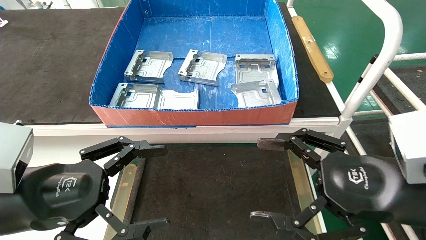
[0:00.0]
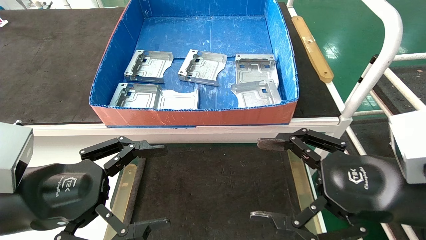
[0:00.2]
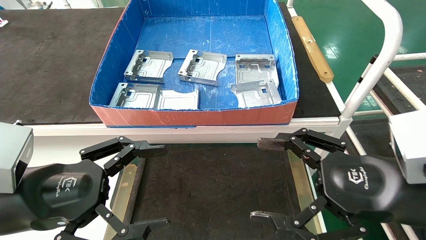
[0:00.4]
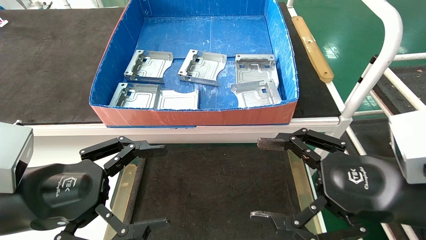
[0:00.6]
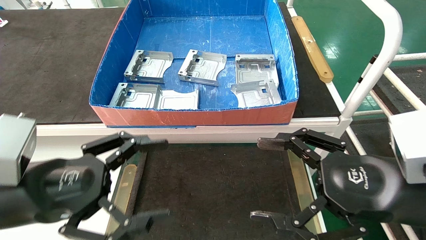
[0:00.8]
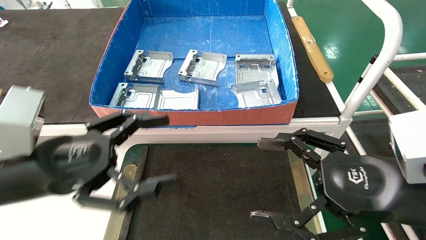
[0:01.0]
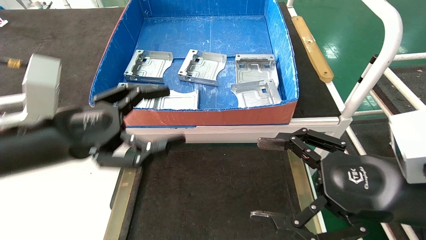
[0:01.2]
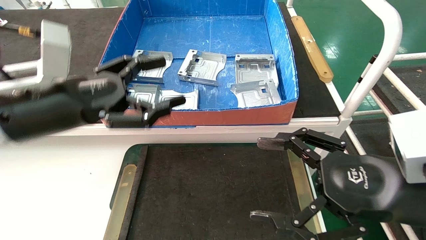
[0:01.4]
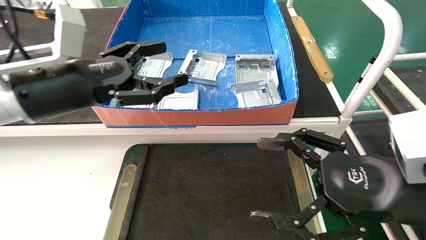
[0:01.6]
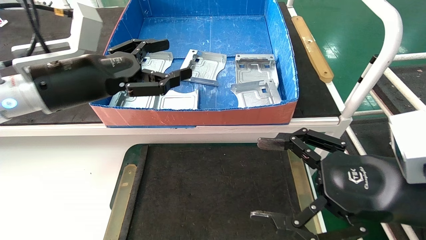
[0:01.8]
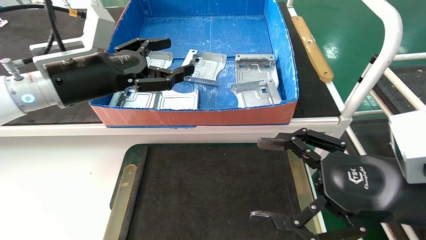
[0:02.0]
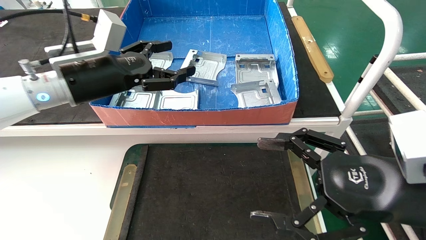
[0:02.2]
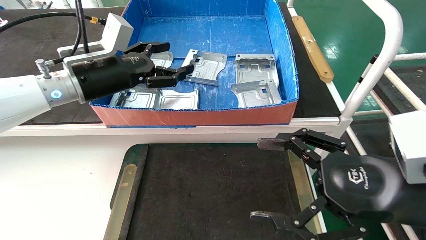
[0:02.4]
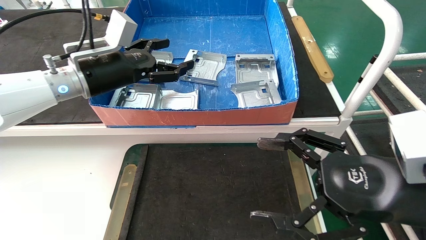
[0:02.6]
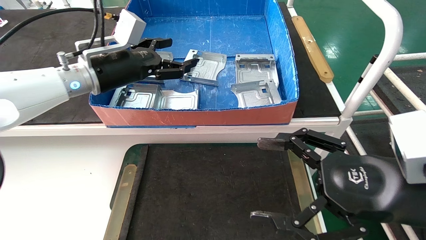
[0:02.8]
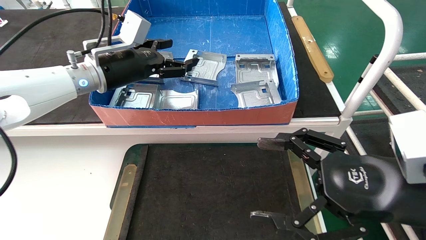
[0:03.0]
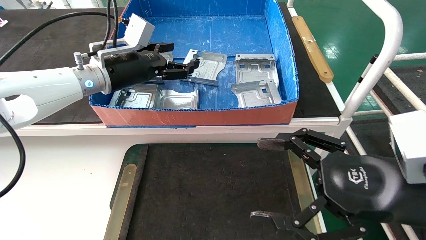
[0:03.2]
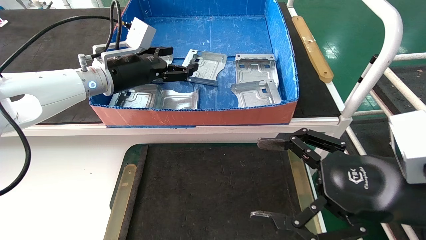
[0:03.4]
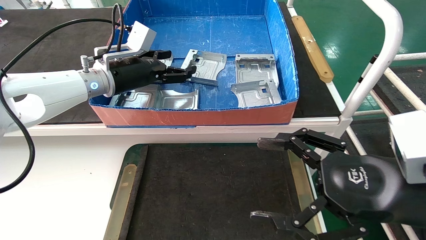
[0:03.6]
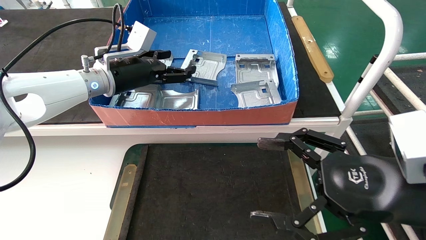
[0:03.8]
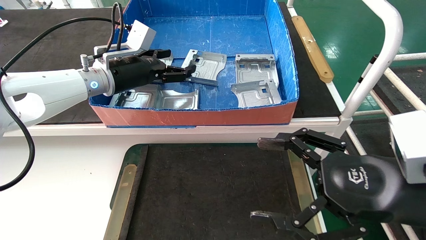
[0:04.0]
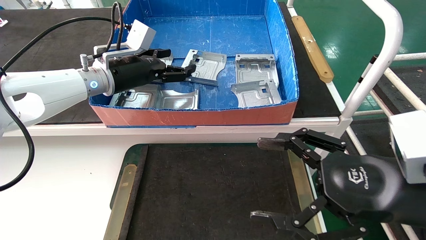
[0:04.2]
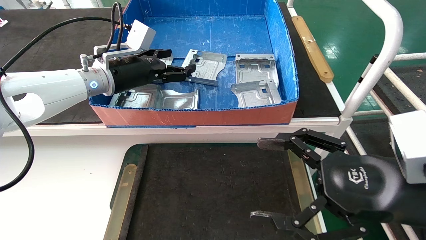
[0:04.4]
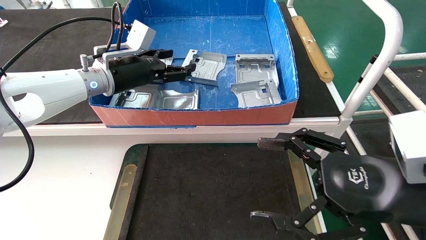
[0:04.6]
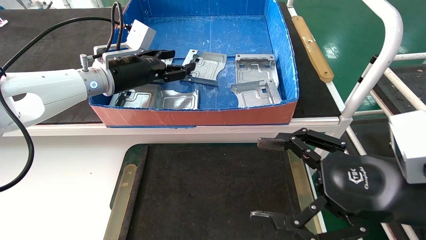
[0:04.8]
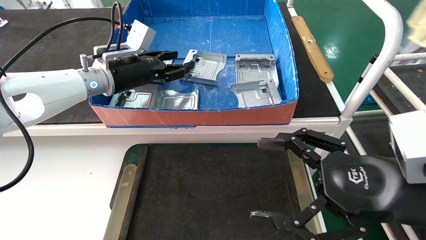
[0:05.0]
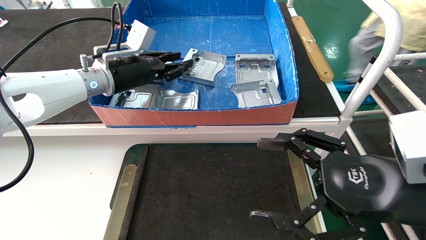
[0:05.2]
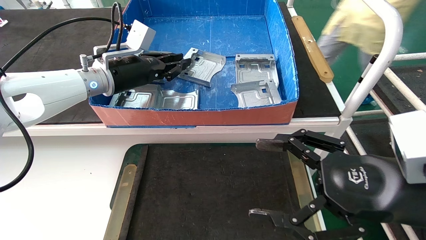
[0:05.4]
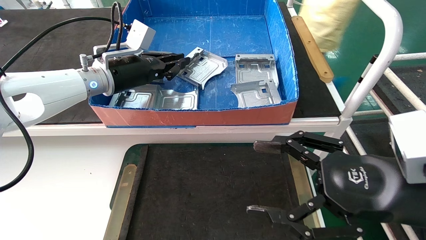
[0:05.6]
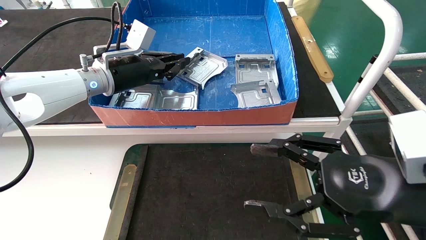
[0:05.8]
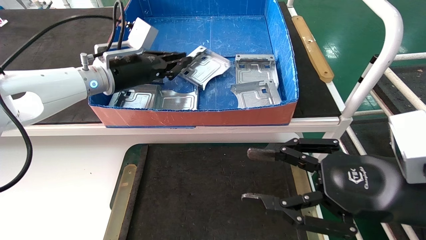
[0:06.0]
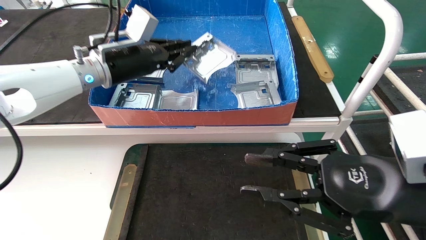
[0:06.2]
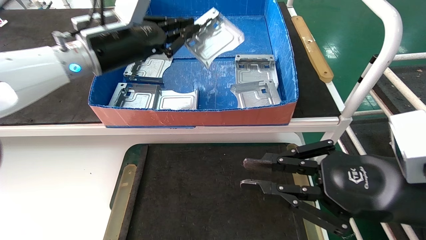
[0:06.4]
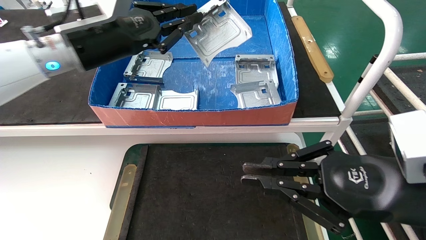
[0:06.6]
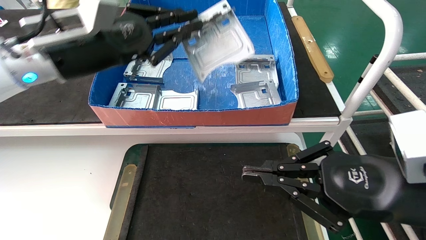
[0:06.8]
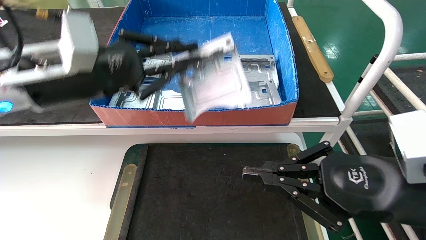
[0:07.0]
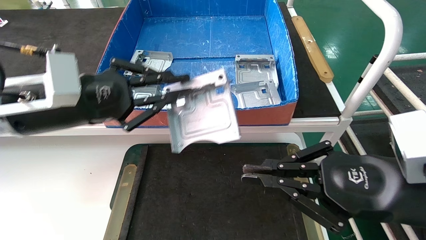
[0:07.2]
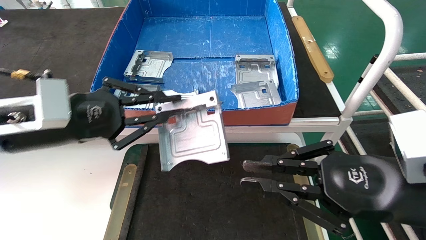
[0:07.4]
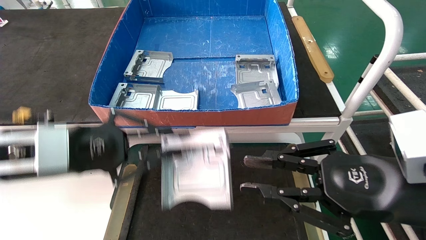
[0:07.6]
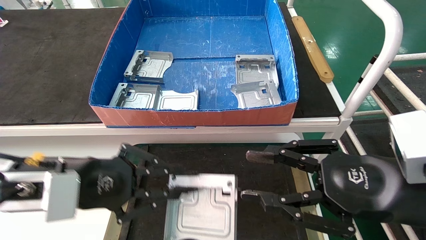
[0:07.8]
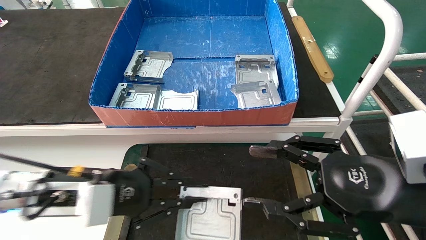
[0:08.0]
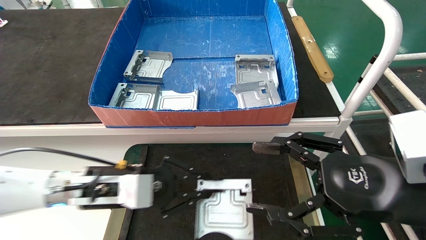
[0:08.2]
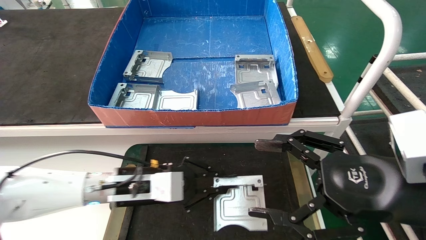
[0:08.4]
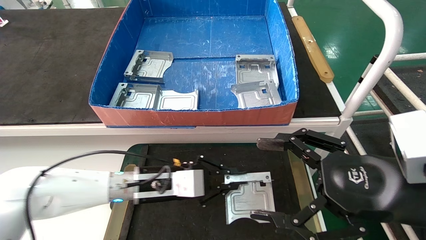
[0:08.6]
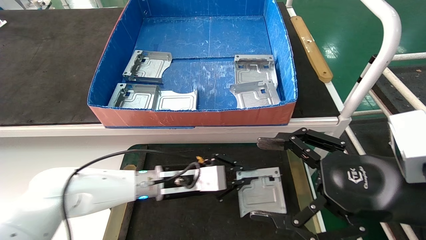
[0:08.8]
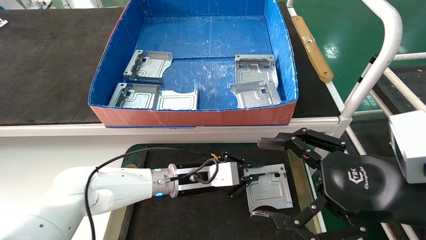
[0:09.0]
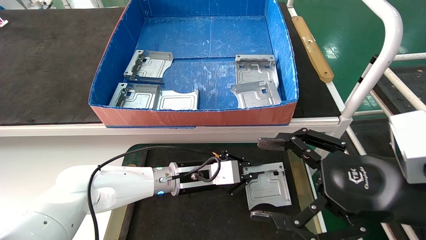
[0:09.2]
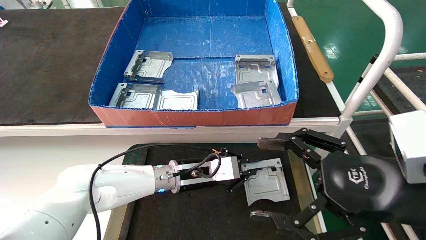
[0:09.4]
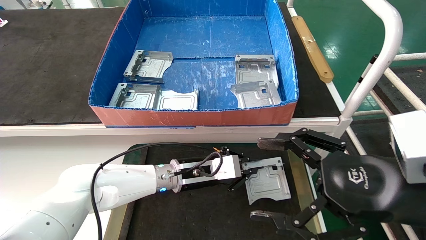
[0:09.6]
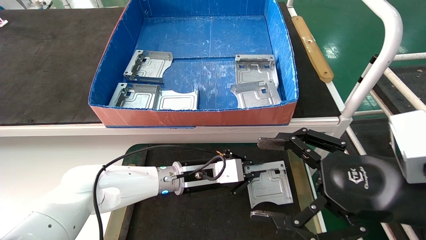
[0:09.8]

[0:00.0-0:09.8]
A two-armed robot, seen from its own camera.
Task of the whole recording: take the accessories out of the box and place them on the table.
Step, 0:01.2 to 0:05.6: Pick up the hard drive bracket from the feeding area.
0:00.0 to 0:01.4: The left gripper is displaced forward and upward by some 10 cm.
0:01.4 to 0:02.8: The left gripper goes roughly 15 cm forward.
0:02.8 to 0:04.2: The grippers move only a little.
0:04.2 to 0:05.6: The left gripper closes.
0:05.6 to 0:07.0: The right gripper closes its fingers, while the left gripper moves backward, about 15 cm.
0:07.0 to 0:08.4: The left gripper travels downward by approximately 20 cm. The right gripper opens up.
0:08.4 to 0:09.8: The left gripper heads to the right and forward, covering some 10 cm.

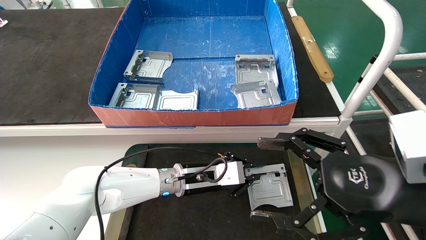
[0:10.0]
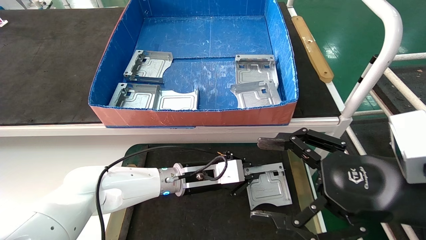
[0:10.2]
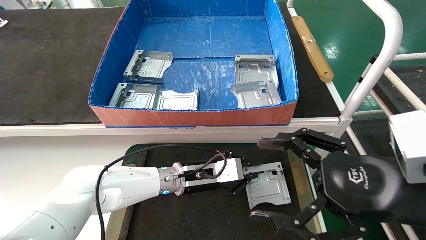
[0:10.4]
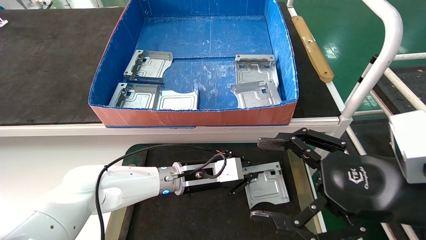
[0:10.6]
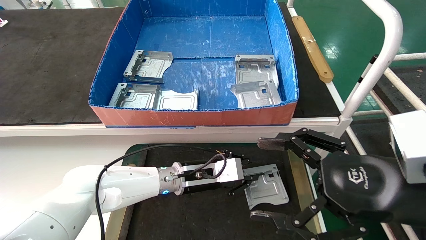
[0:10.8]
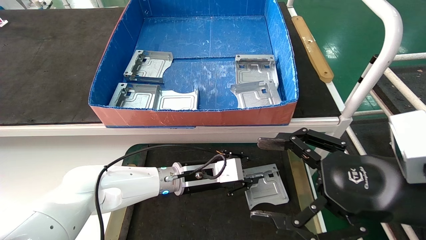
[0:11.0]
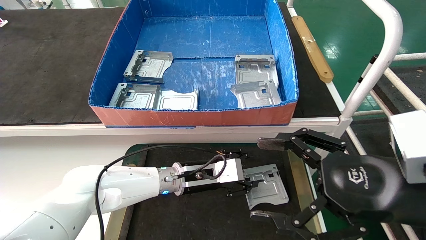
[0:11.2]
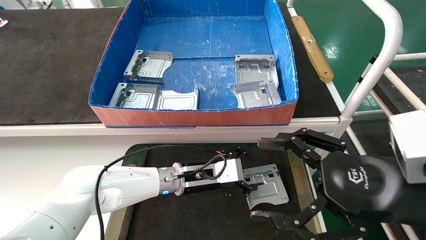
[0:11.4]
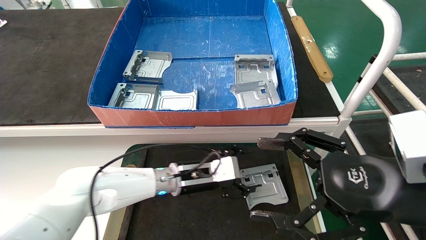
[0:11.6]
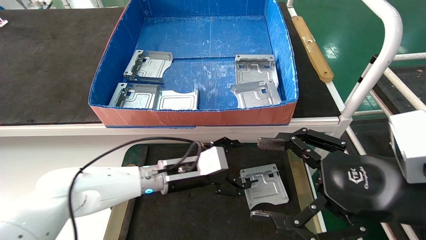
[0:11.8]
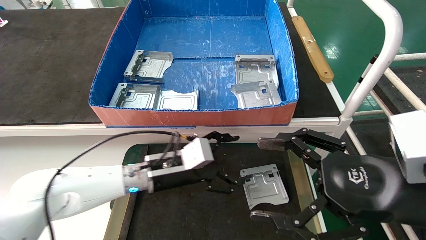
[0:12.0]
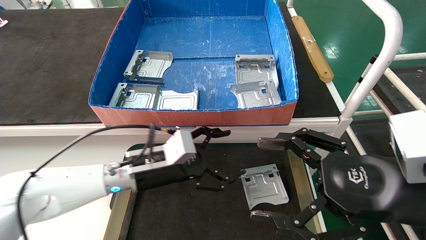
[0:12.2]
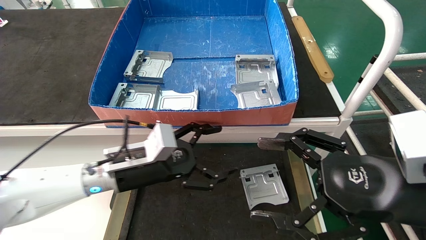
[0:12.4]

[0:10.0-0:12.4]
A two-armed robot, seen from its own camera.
Task of the whole recording: take the accessories out of the box and place them on the table.
0:10.0 to 0:11.2: The left gripper opens.
0:11.2 to 0:12.4: The left gripper goes approximately 15 cm to the left, backward and upward, and opens its fingers.
